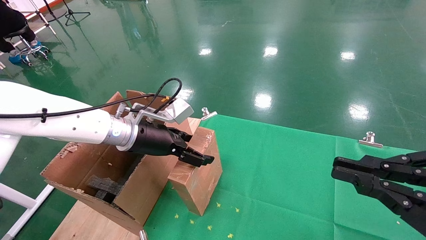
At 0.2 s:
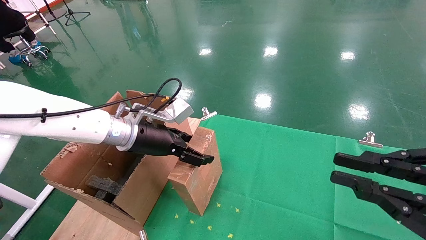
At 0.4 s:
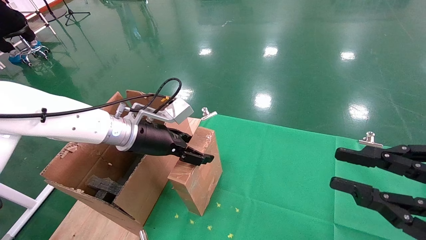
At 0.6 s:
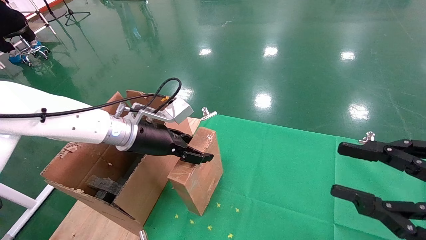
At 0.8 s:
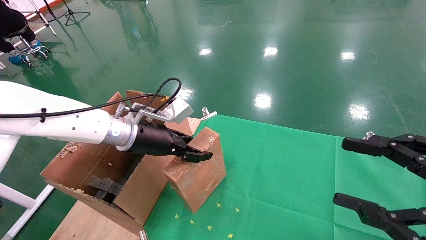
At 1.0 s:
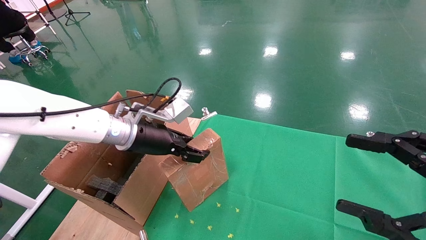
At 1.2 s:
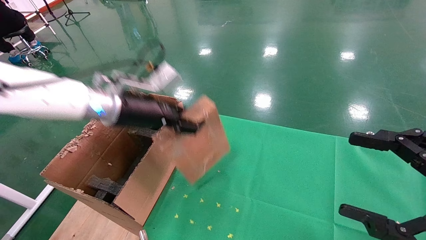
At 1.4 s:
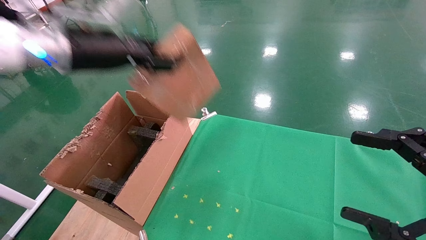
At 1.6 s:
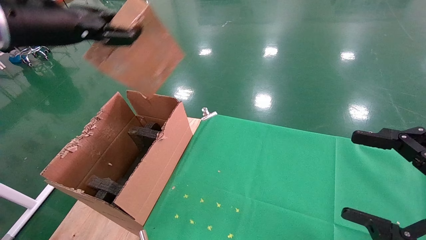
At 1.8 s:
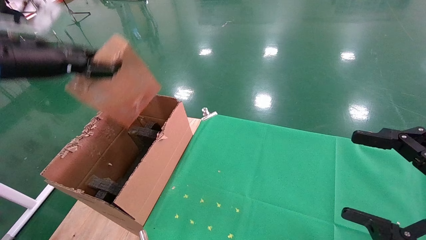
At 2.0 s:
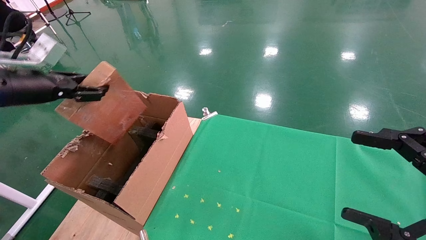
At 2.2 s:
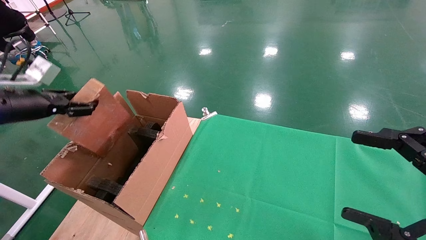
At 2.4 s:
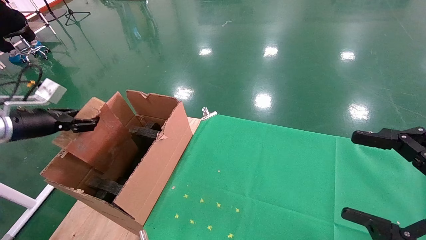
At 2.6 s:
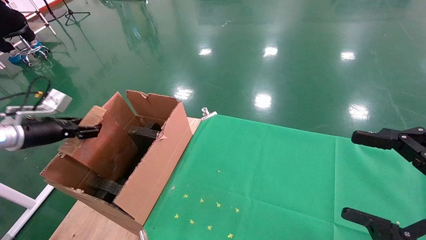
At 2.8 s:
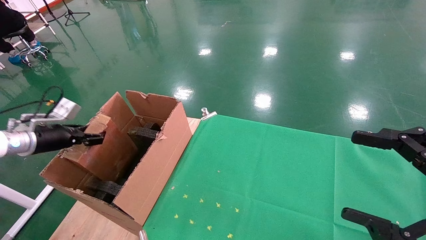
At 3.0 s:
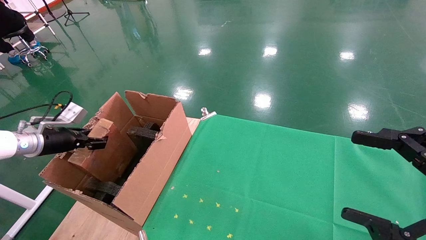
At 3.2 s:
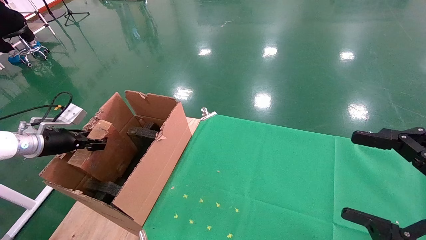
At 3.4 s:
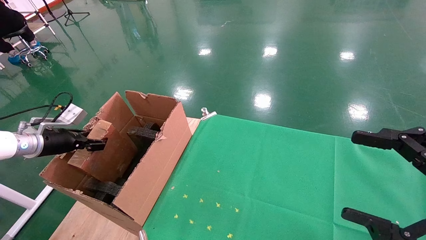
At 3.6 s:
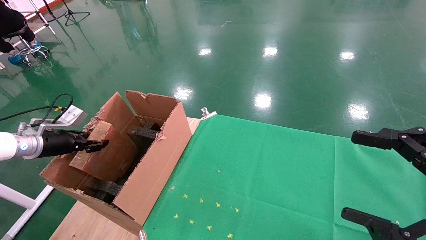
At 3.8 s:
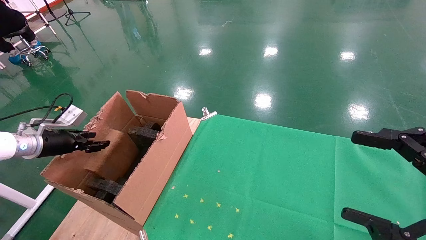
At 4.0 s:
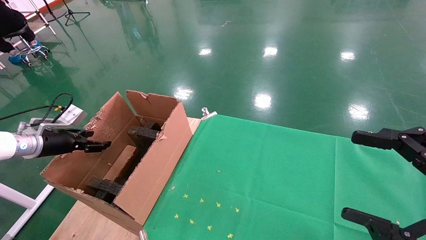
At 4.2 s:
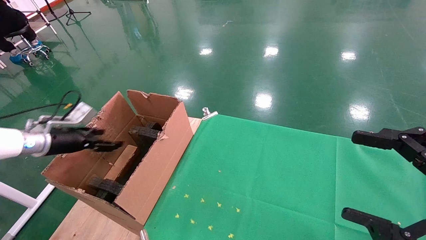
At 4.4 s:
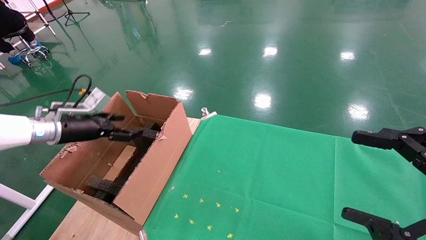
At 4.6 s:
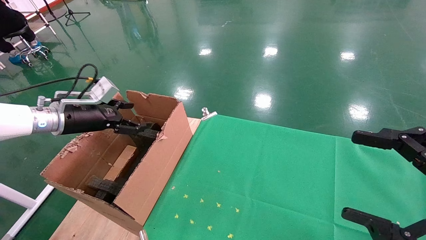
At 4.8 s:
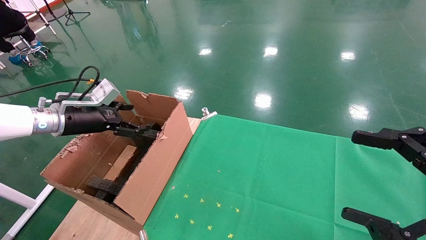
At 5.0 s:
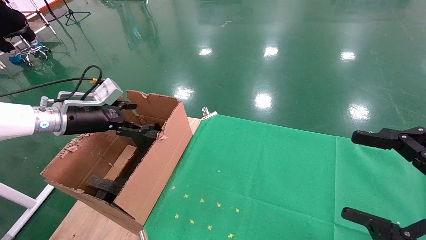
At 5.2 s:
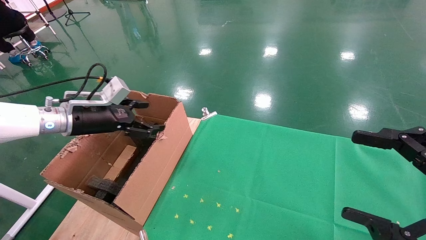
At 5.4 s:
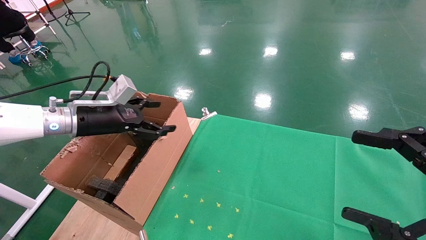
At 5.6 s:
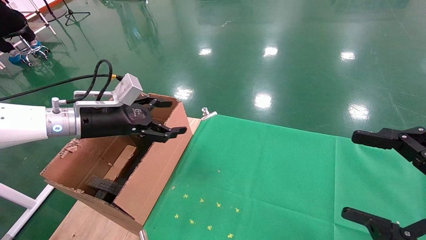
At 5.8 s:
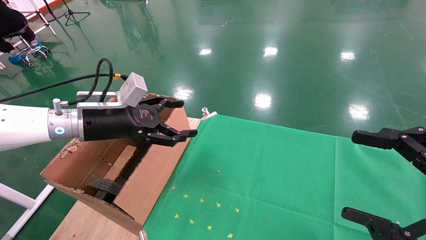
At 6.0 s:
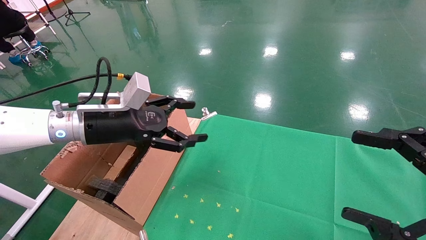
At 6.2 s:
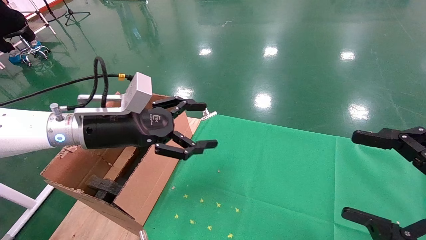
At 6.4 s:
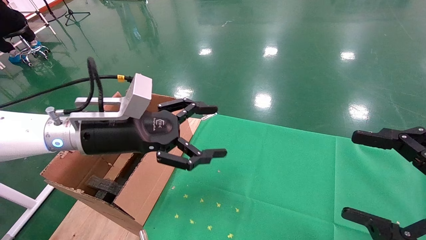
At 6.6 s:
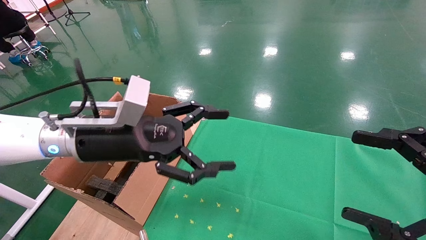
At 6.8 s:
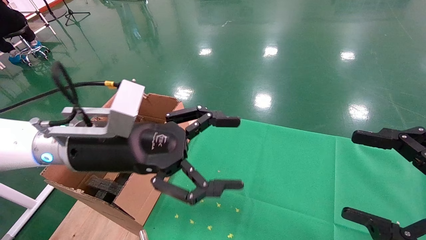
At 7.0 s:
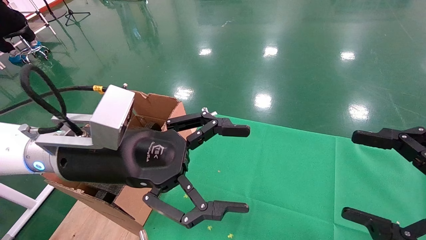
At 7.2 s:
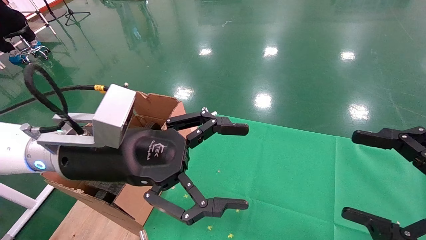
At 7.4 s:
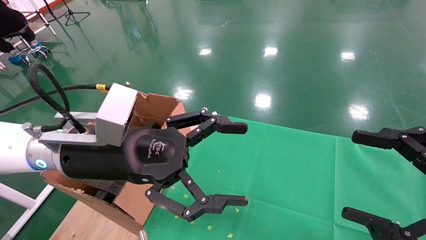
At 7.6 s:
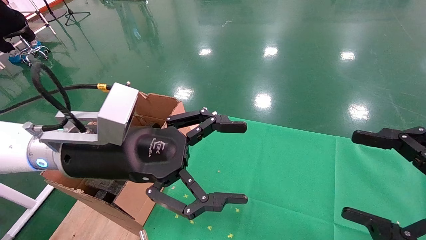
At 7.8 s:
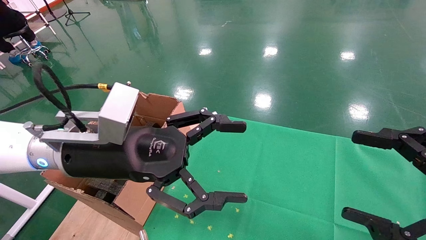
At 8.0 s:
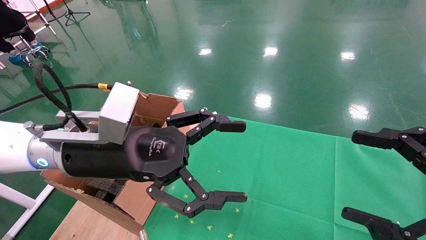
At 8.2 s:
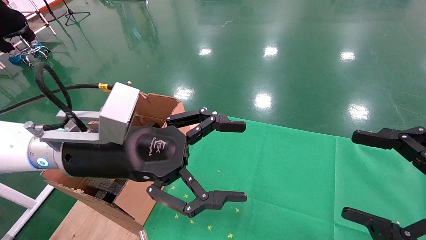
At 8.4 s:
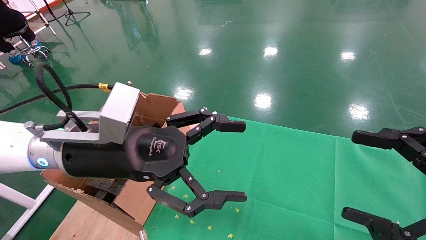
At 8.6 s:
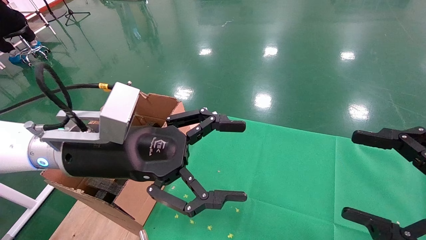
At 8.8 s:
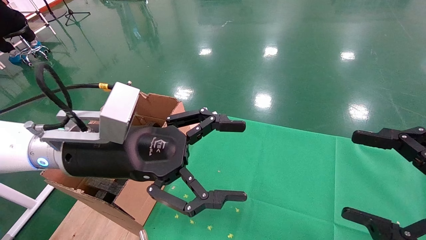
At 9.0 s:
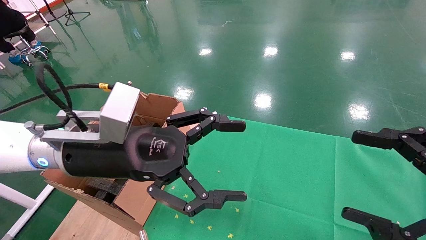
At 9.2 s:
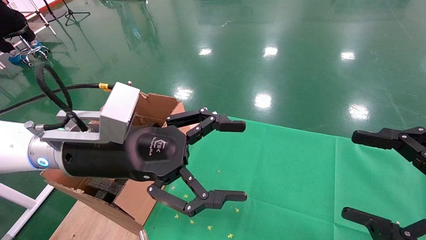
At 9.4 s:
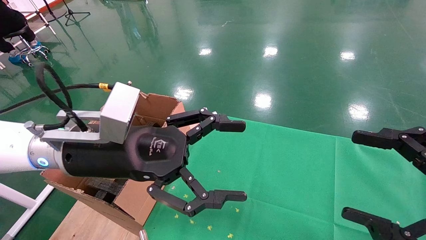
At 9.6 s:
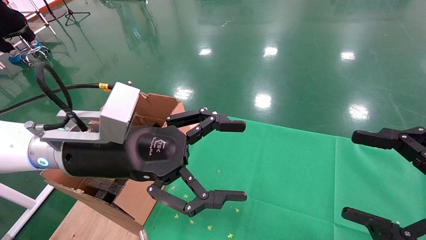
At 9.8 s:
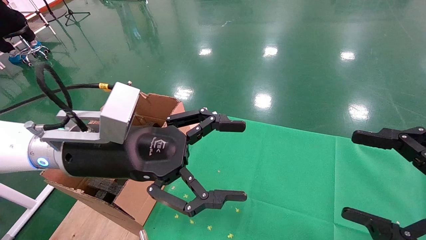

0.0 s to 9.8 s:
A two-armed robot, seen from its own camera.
Task of the whole recording: using a robotic arm to pick up a cardboard box and palace it the carton.
Step, 1.0 to 4.0 s: Place the mouse and the power cord paper box into the container.
0.0 to 1.4 s: The left gripper is displaced upward and to the left by some 15 cm, and closes its fingers, while the right gripper opens its fingers.
1.4 to 2.8 s: The left gripper moves to the left and downward, roughly 30 cm.
2.8 to 4.2 s: The left gripper opens its fingers.
4.2 to 5.6 s: The left gripper travels to the right and upward by roughly 15 cm, and opens.
5.6 to 7.0 s: The left gripper goes roughly 15 cm to the right and backward.
7.0 to 9.8 s: Neither gripper changes place.

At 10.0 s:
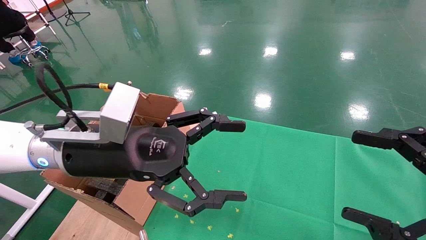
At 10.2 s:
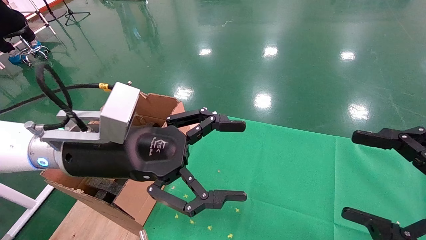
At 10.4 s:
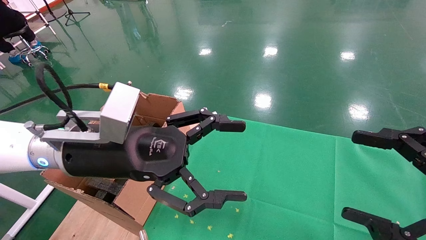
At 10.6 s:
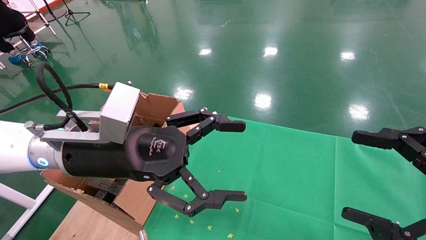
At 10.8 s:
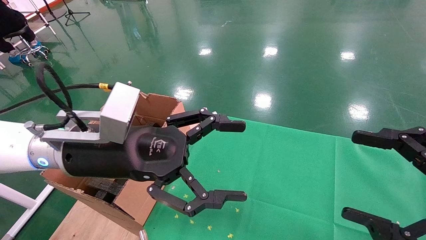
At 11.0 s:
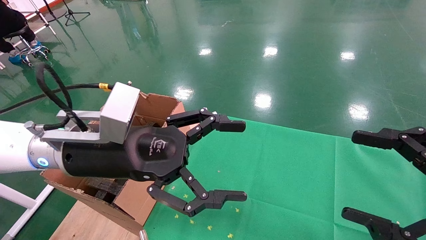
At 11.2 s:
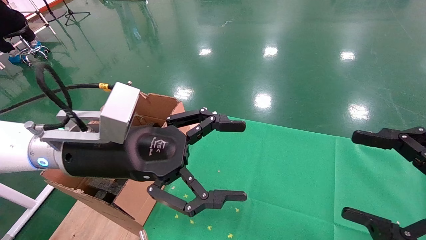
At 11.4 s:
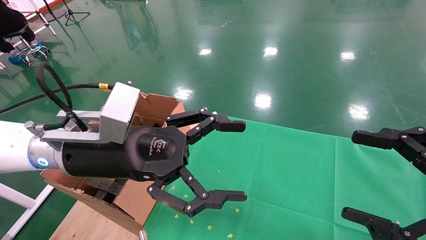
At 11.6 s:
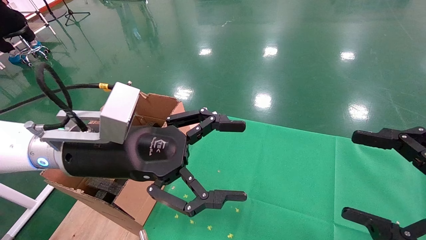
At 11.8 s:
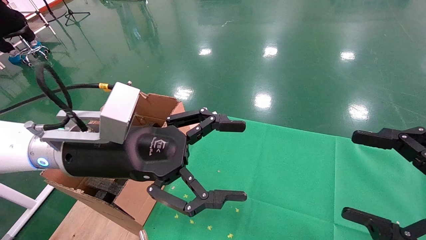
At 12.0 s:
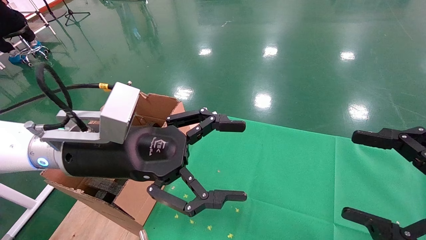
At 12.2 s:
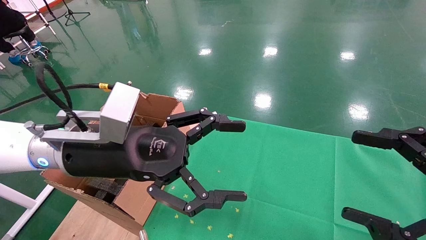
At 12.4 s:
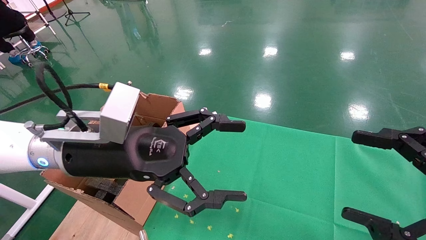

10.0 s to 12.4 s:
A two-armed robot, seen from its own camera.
Task of the whole recording: using a robotic arm to pick up a cardboard box and palace it the carton.
10.0 to 12.4 s: Both grippers stay about where they are.
